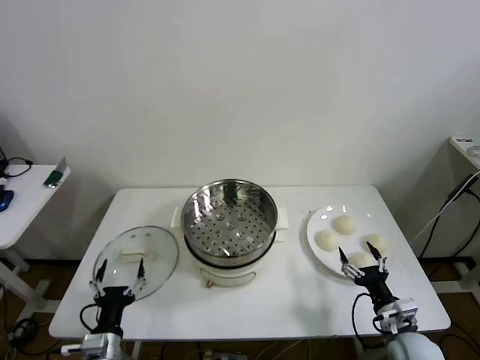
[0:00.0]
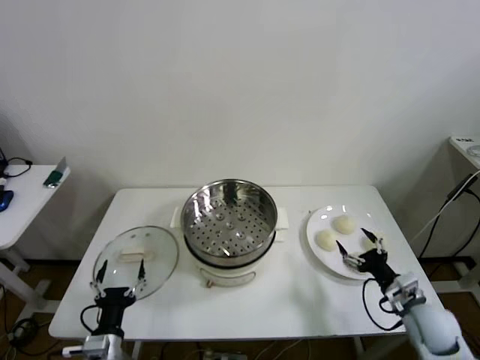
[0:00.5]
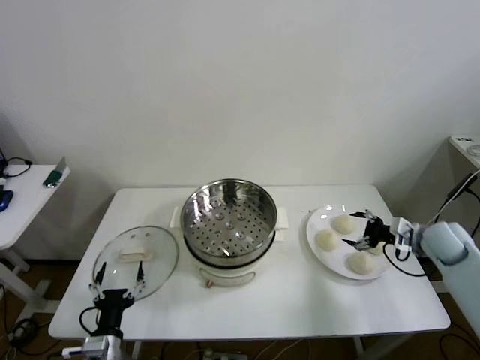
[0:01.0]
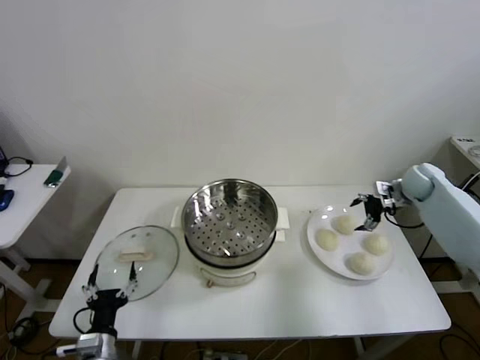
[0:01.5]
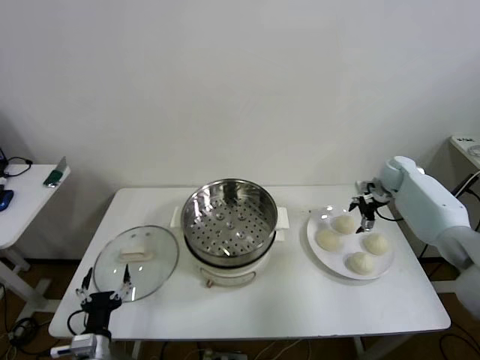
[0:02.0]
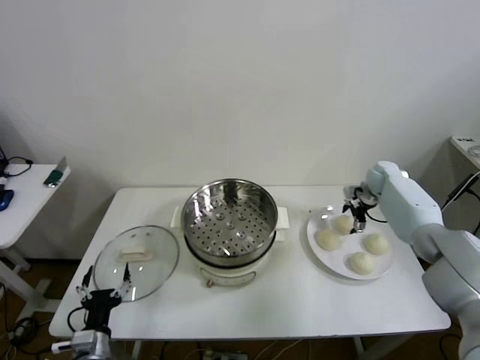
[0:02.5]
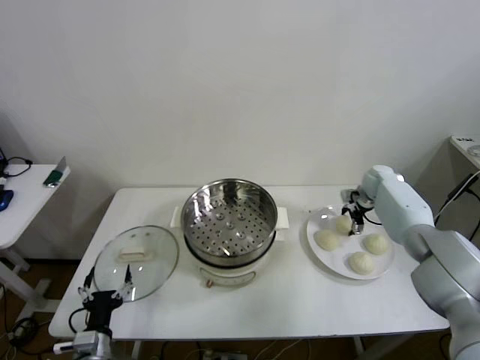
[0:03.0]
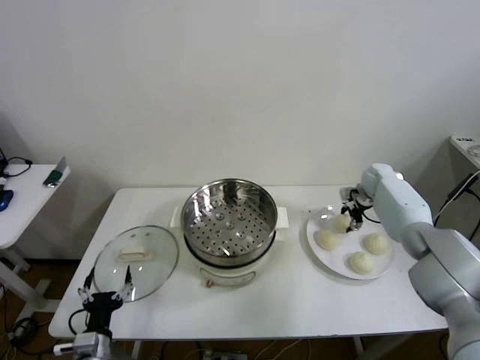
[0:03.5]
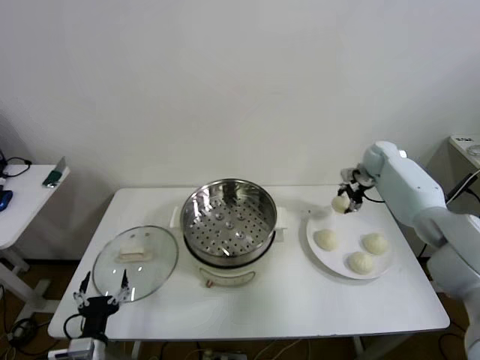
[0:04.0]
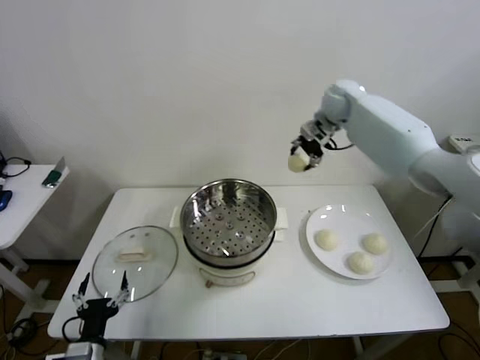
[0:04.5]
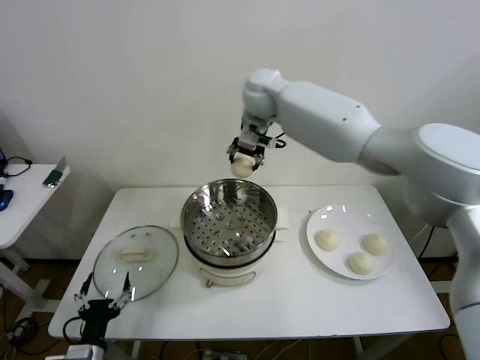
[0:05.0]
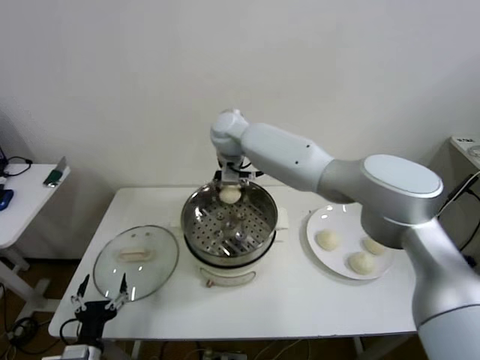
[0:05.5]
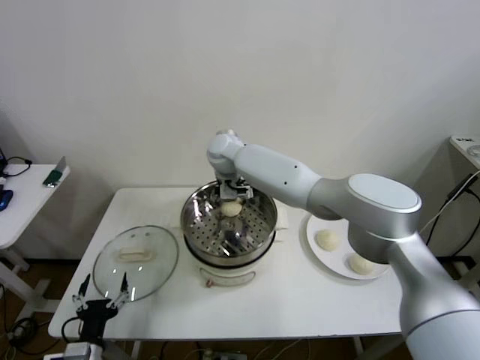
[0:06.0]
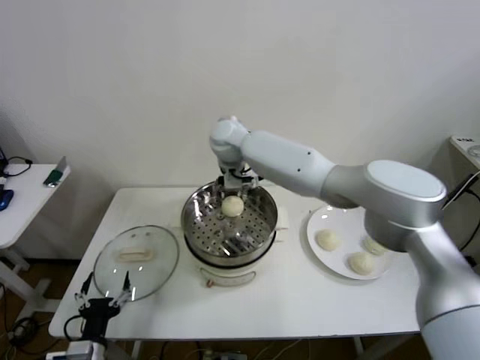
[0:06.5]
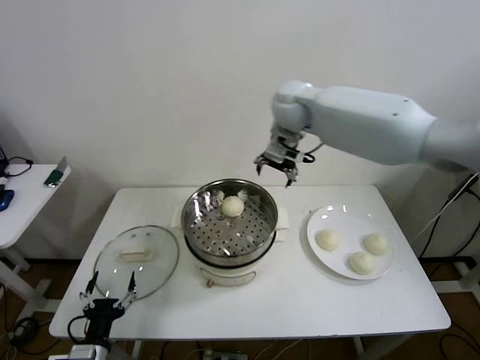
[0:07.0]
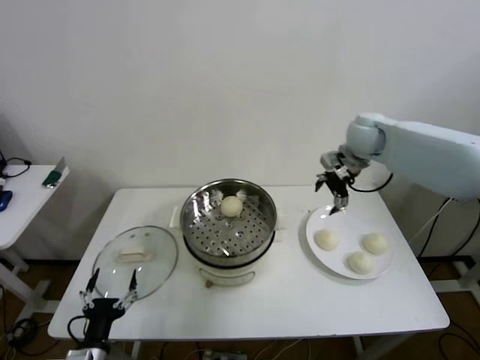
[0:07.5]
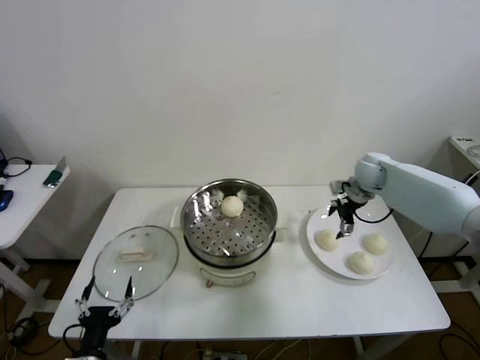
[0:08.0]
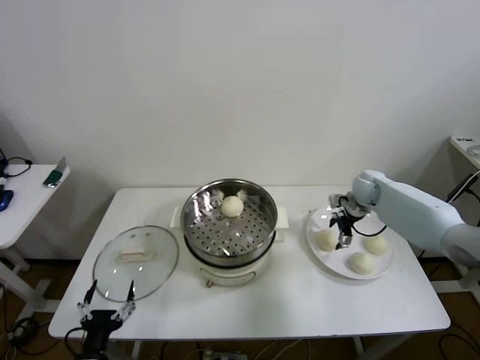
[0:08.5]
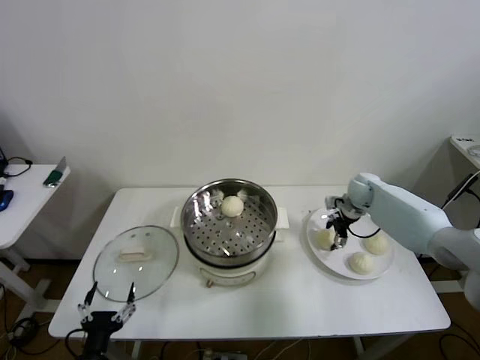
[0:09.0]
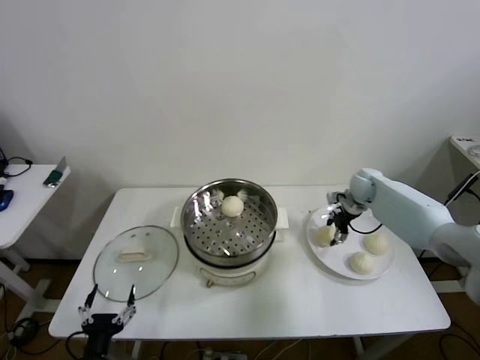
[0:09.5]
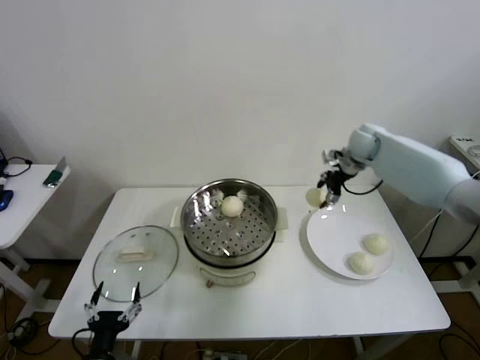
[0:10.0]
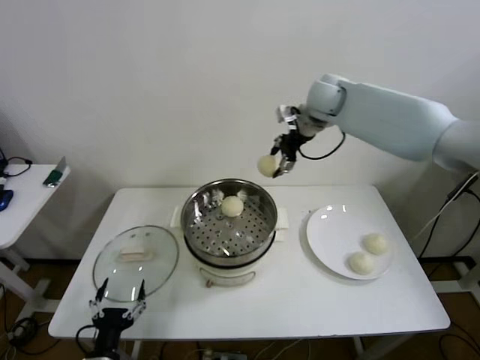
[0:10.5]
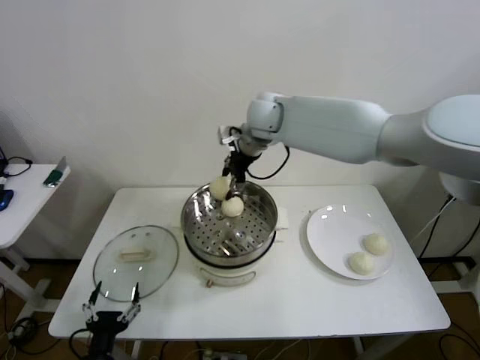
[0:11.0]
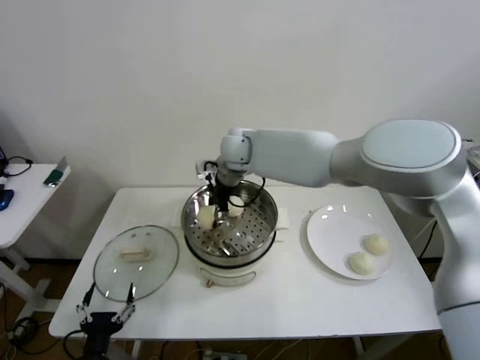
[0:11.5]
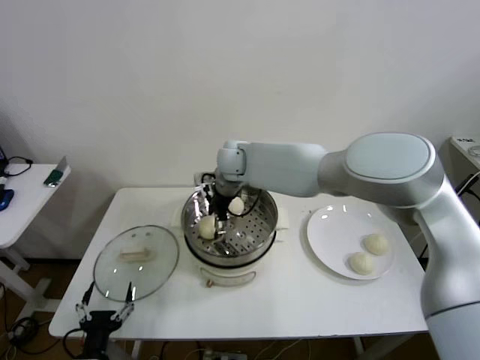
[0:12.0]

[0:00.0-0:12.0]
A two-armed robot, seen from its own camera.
Step, 0.0 to 3.5 s: Grasp the baozi in the plate with right gripper.
Step, 4.0 to 6.5 s: Place the baozi on the steamer with right gripper.
Step, 7.0 to 9.0 s: Grasp the baozi in the plate with right gripper.
2.0 to 4.0 s: The right gripper travels upward and to the left by roughly 10 cm, and closes.
4.0 to 6.0 s: The right gripper is displaced to the left by roughly 40 cm, and opens its fingers.
6.0 to 8.0 s: The right gripper heads to the right, covering approximately 40 cm.
8.0 to 10.0 s: The right gripper goes about 10 cm upward, and closes its fingers.
10.0 to 12.0 s: The right gripper is displaced to the left by roughly 35 cm, and opens its fingers.

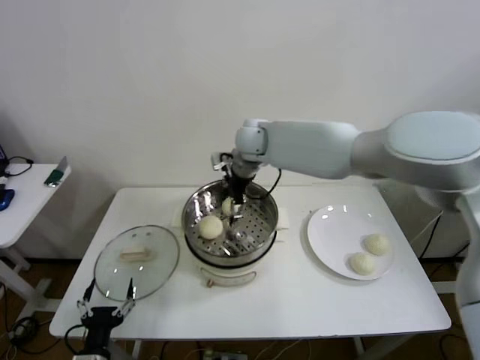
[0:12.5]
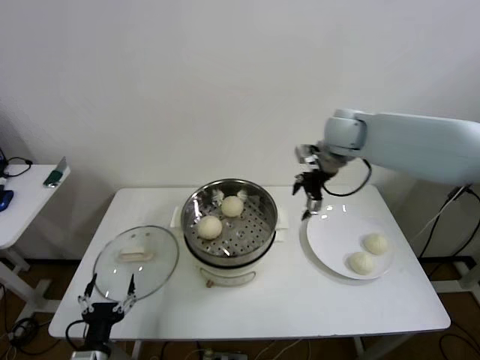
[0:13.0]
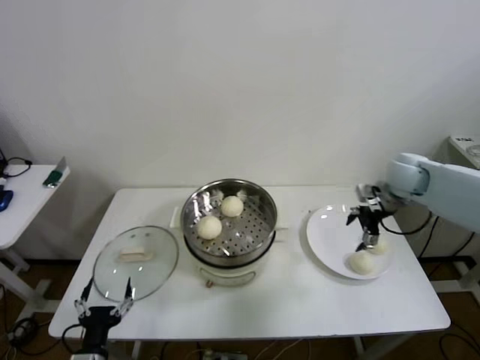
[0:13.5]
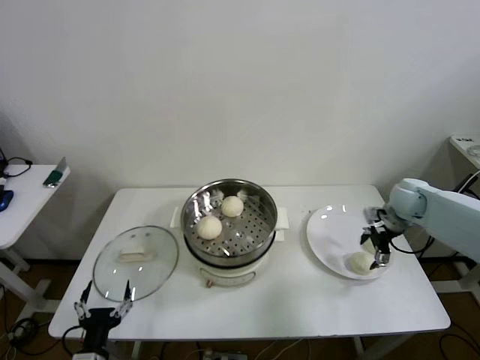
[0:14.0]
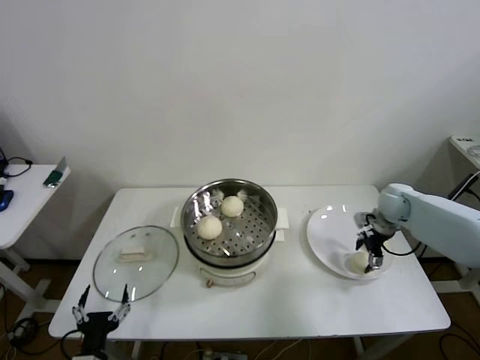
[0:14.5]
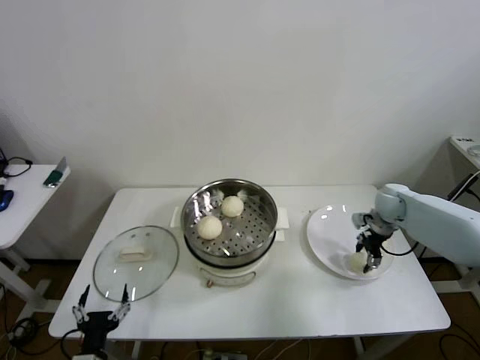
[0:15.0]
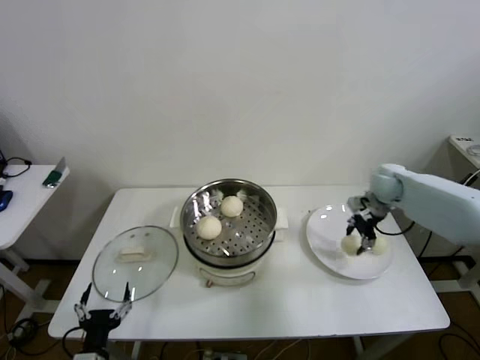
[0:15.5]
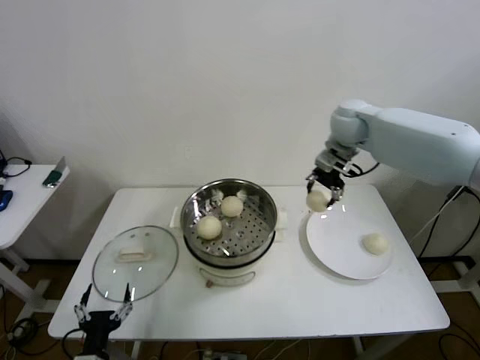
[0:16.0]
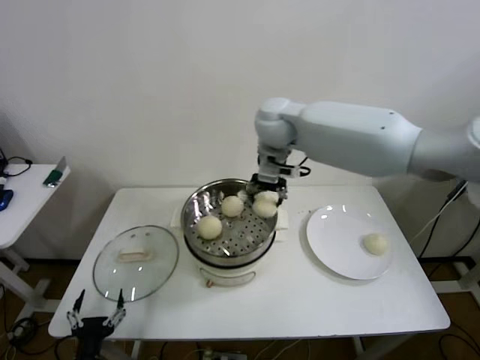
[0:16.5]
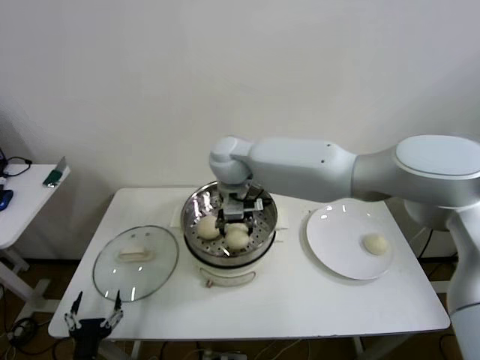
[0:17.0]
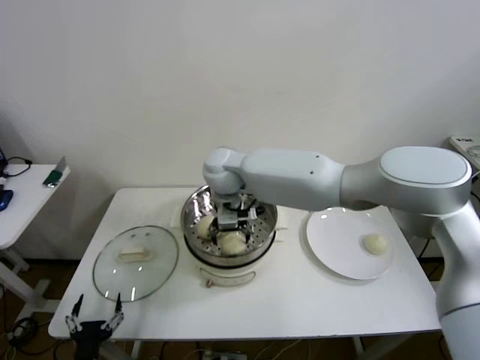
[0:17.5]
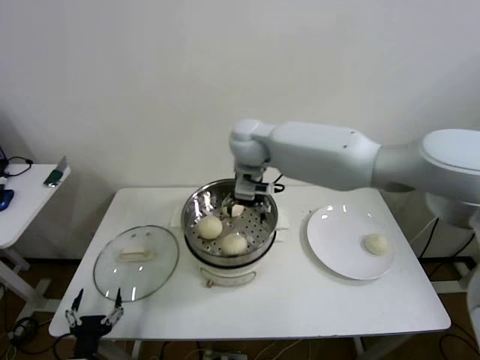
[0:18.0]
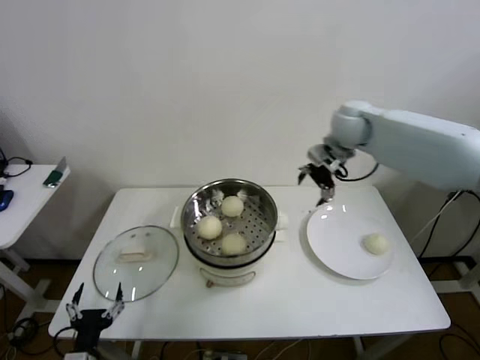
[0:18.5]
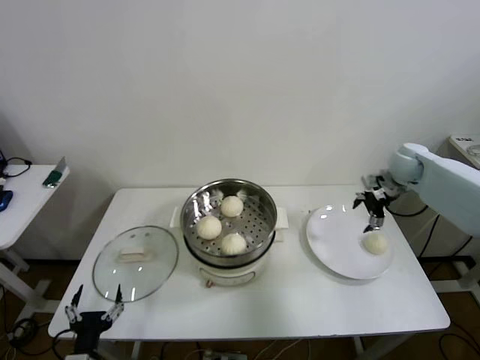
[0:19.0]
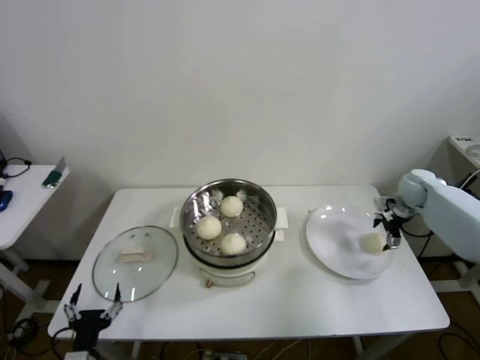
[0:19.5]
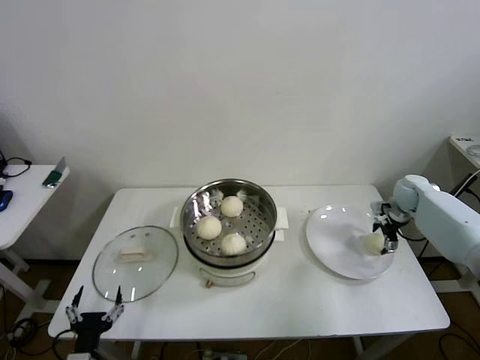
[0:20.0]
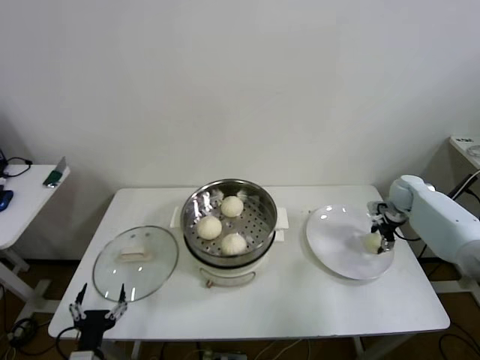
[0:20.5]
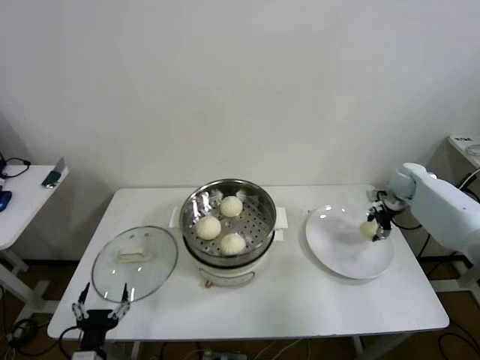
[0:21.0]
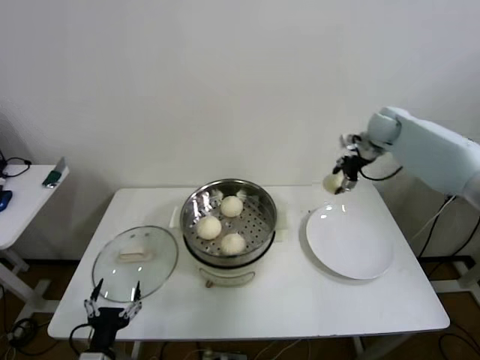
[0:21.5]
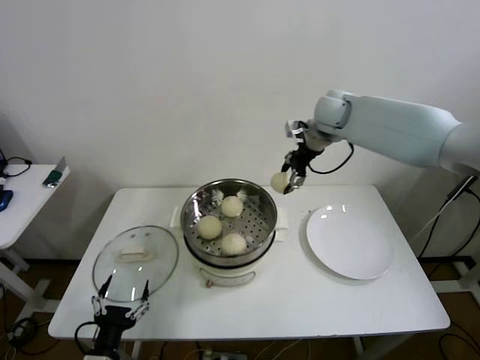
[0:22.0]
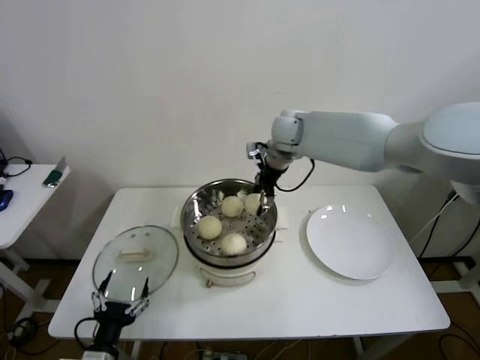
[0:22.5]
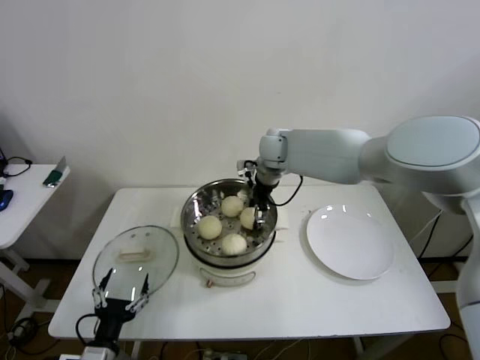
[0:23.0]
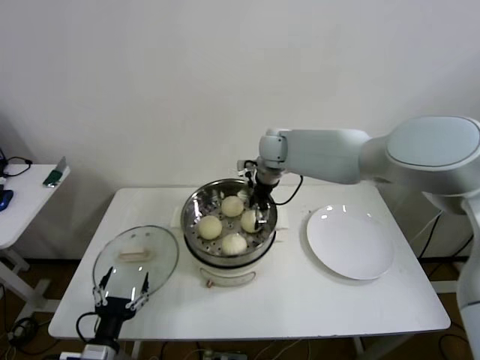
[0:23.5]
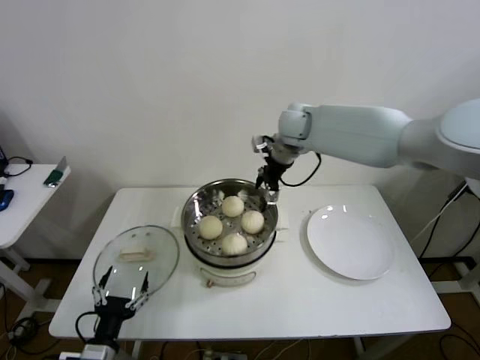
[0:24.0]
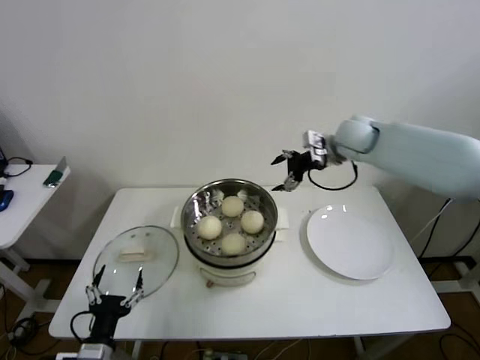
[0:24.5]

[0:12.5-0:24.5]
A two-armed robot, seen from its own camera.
Step, 12.5 to 14.5 s: Grasp the baozi in the plate with right gripper.
Step, 15.5 to 17.5 s: Place the baozi on the steamer with right gripper.
Step, 18.0 to 20.5 s: Grasp the baozi in the plate with right gripper.
Step, 21.0 to 24.0 s: Place the baozi on the steamer with right gripper.
12.5 to 14.5 s: The right gripper shifts approximately 40 cm to the right and downward, and closes.
14.5 to 16.5 s: The right gripper heads to the left and upward, covering some 40 cm, and closes its fingers.
16.5 to 18.5 s: The right gripper travels to the right by roughly 20 cm, and opens.
18.5 to 20.5 s: The right gripper shifts some 30 cm downward and to the right, and closes up.
20.5 to 22.5 s: The right gripper moves to the left and upward, some 40 cm.
22.5 to 24.5 s: The right gripper heads to the right, covering roughly 15 cm, and opens up.

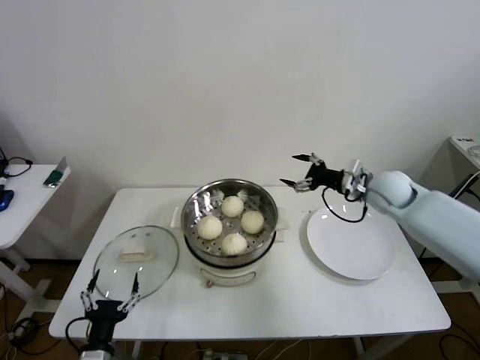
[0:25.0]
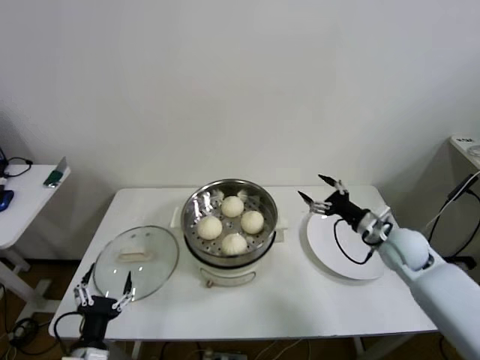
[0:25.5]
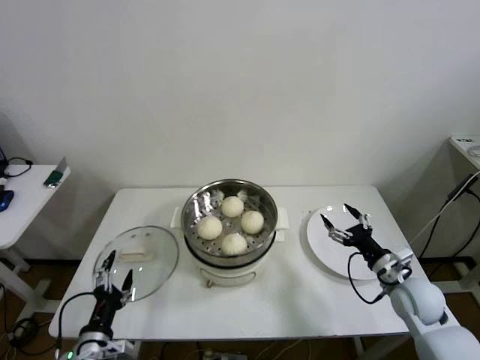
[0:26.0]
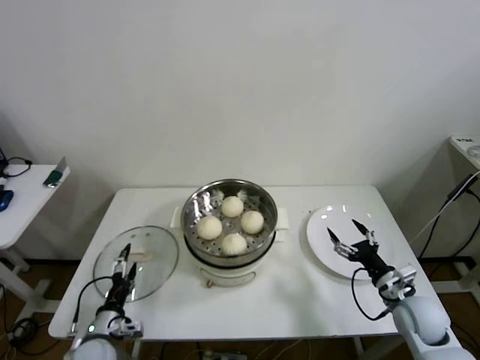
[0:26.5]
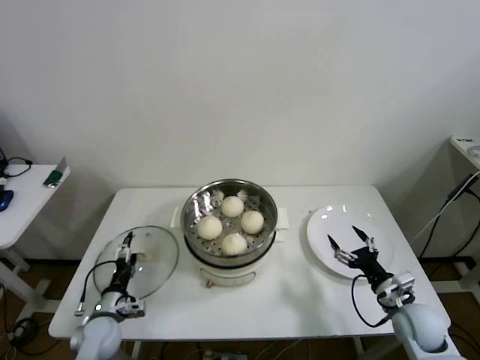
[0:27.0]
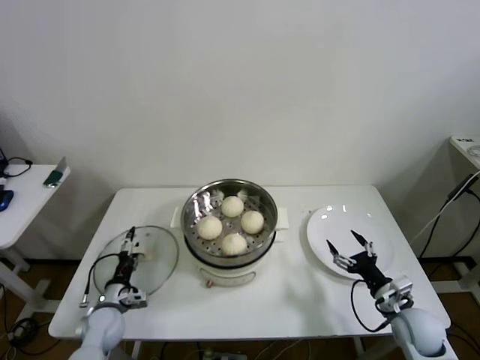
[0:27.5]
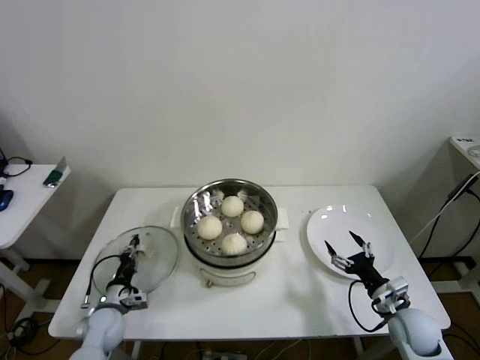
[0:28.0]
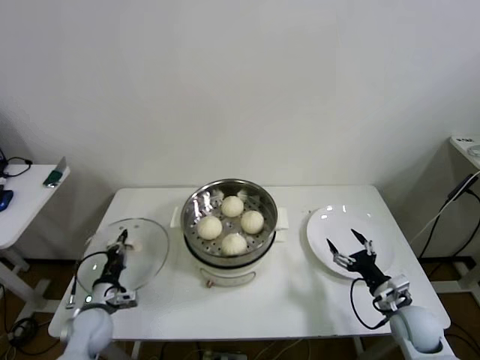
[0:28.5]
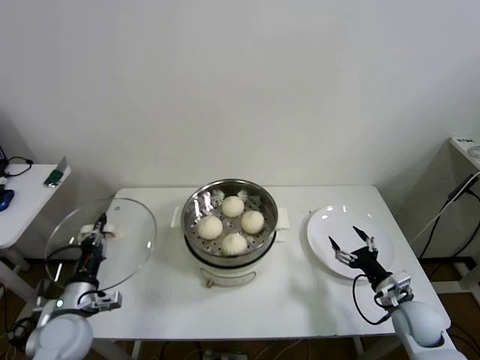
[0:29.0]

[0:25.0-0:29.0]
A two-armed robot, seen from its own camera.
Step, 25.0 to 28.0 s: Grasp the pot lid with left gripper.
25.0 to 27.0 s: The right gripper goes approximately 30 cm backward and downward. The left gripper heads forward and downward, covering about 15 cm.
27.0 to 29.0 s: The left gripper travels upward by roughly 10 cm, and closes.
